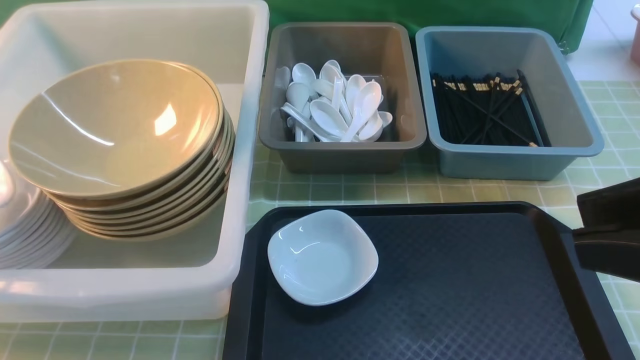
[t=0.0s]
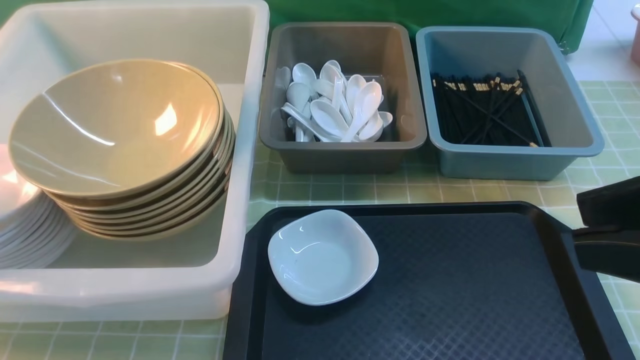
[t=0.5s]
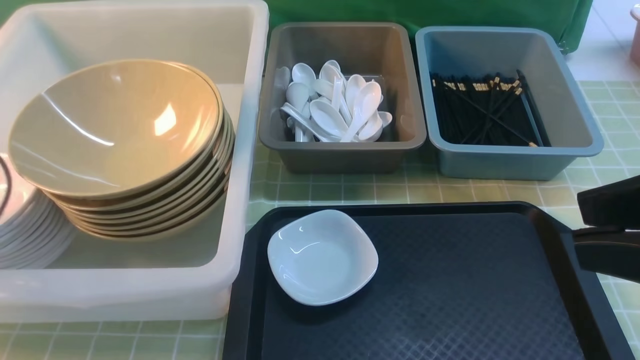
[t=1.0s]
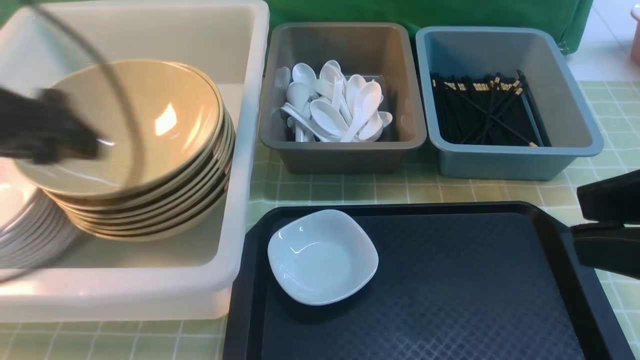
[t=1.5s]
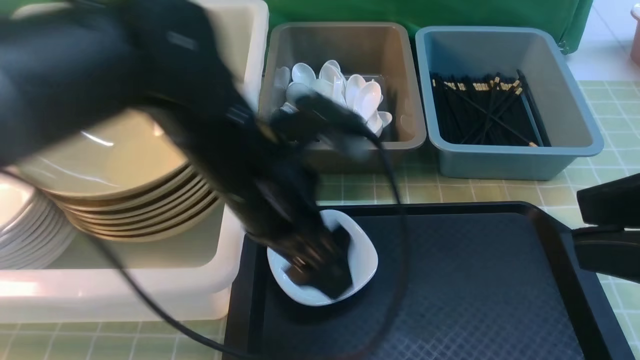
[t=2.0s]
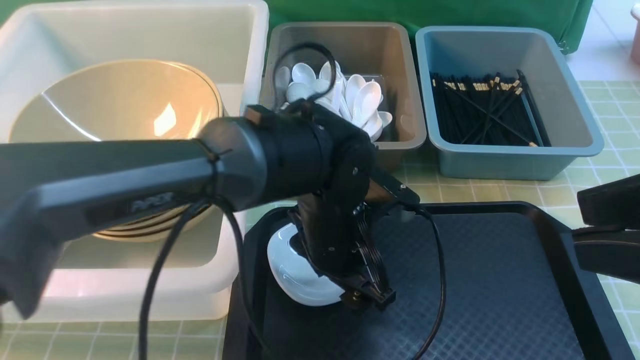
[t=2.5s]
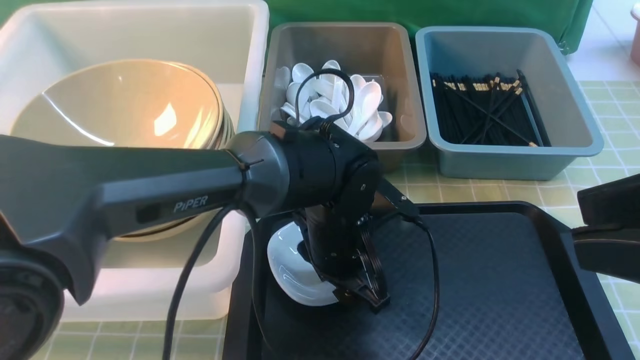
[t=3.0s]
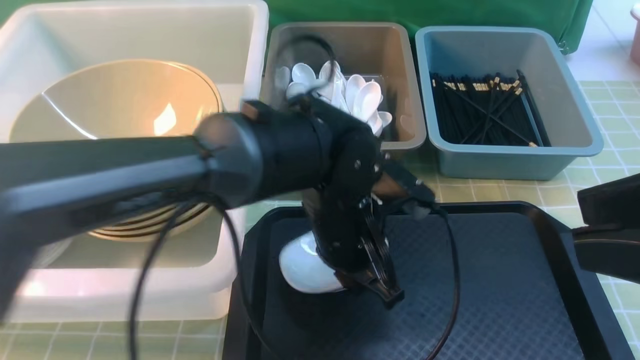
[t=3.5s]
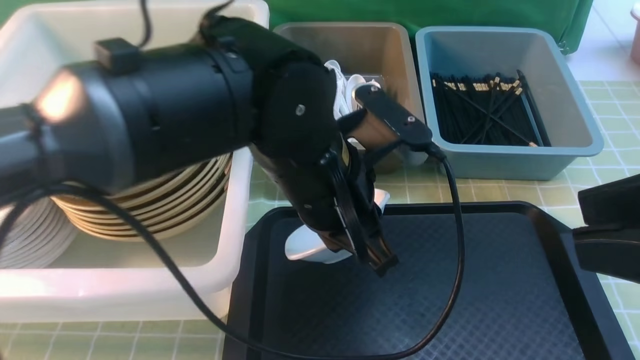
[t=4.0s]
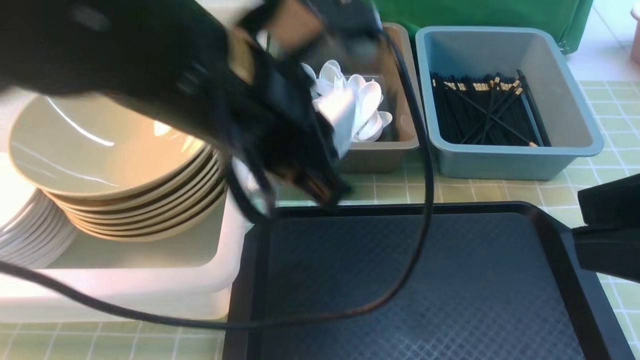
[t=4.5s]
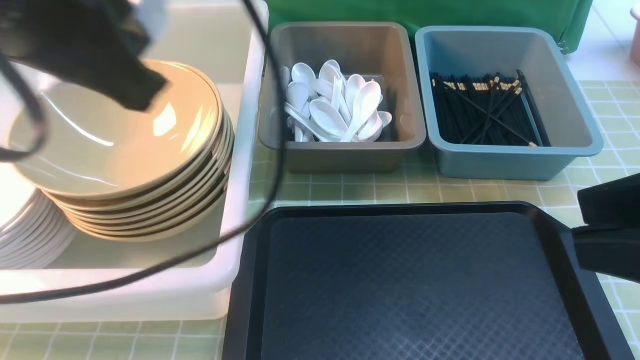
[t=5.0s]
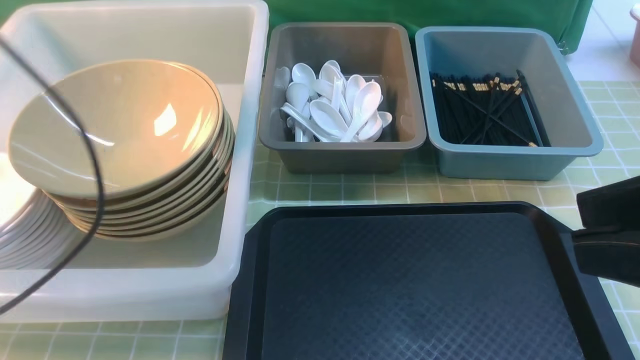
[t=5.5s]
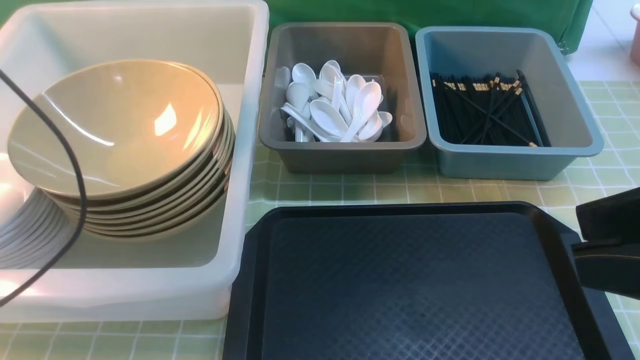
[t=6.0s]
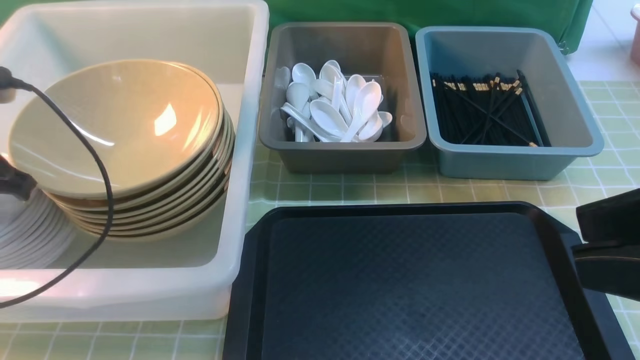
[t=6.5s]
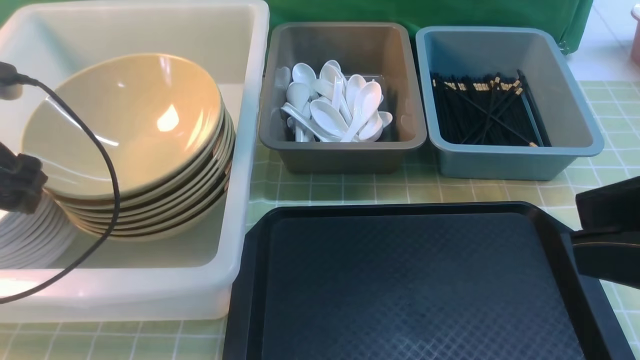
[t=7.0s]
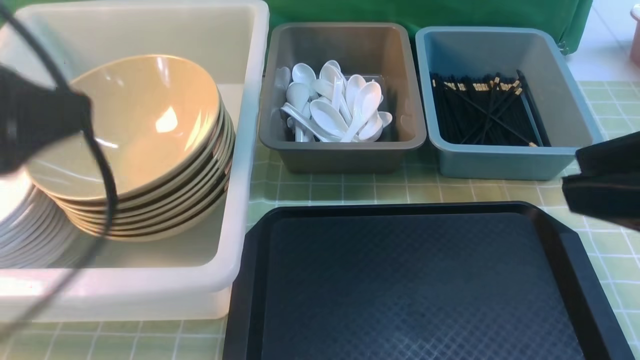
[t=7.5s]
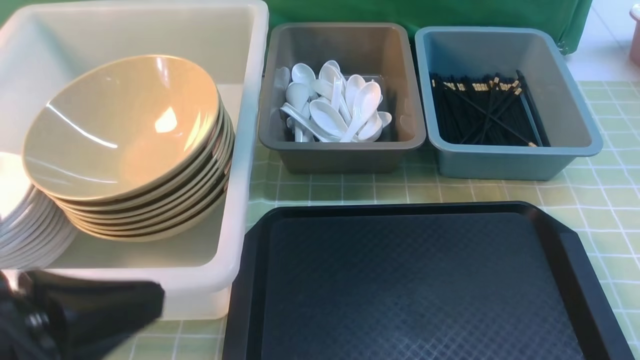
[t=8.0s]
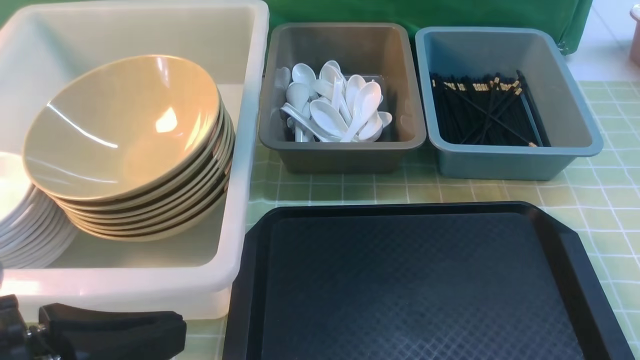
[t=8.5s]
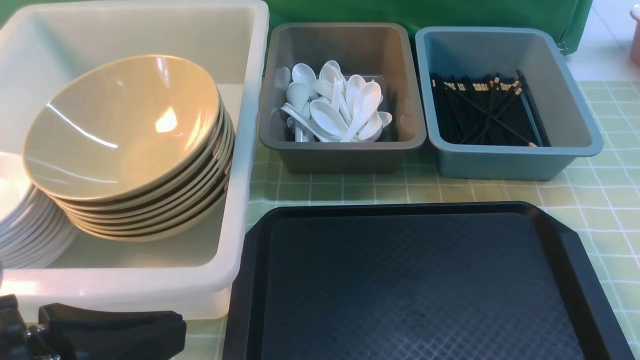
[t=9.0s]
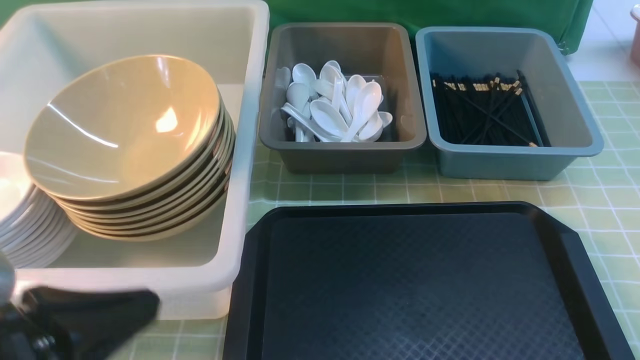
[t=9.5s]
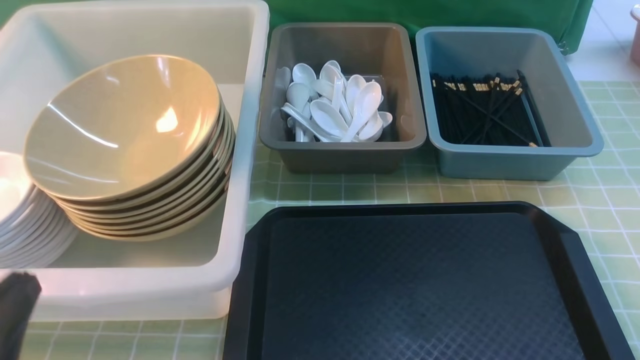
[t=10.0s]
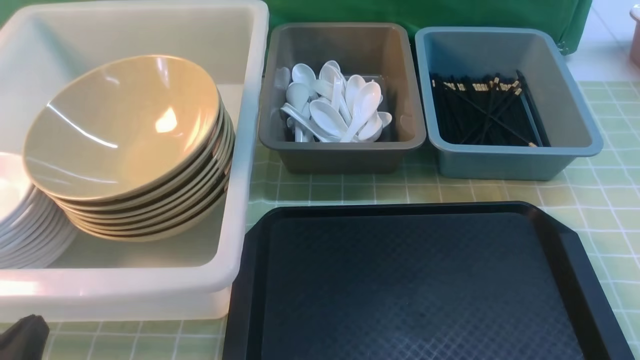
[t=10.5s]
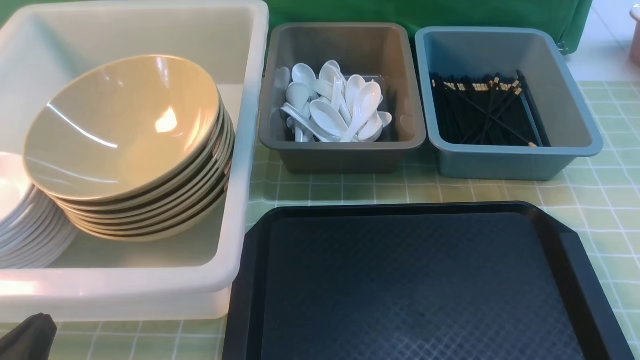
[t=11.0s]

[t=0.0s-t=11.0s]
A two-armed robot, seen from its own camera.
Task of the whole recording: on green table put chopsticks spoon bowls plates into blue grey white boxes.
Step, t=1.5s to t=3.5s: use the left arm to grab the plate.
Step, t=4.0s to t=7.0s: use the left arm to put the plate into the large storage box on the left.
t=0.0s to t=2.0s: The left gripper shifts approximately 35 cm to the right, and opens.
t=2.0s to t=3.5s: The left gripper goes roughly 10 cm to the right and downward, and closes up.
t=3.5s to t=5.5s: The left gripper travels to the left and upward by approximately 35 cm.
t=5.5s to t=7.5s: The left gripper heads backward, covering about 5 cm, and opens up.
t=7.5s to t=9.0s: The right gripper moves downward, backward and to the right, approximately 20 cm. The left gripper heads downward and backward, covering roughly 10 cm, and closes its fingers.
t=9.0s to t=11.0s: The left gripper travels downward and to the left by about 15 cm.

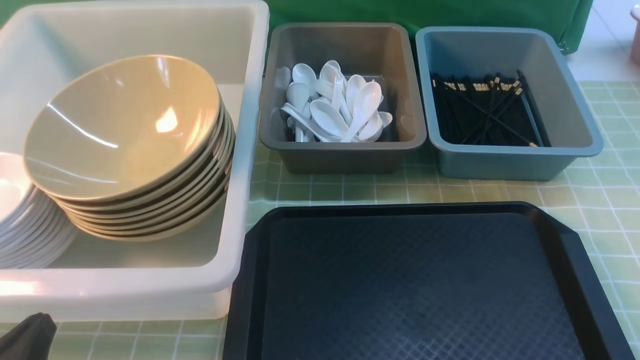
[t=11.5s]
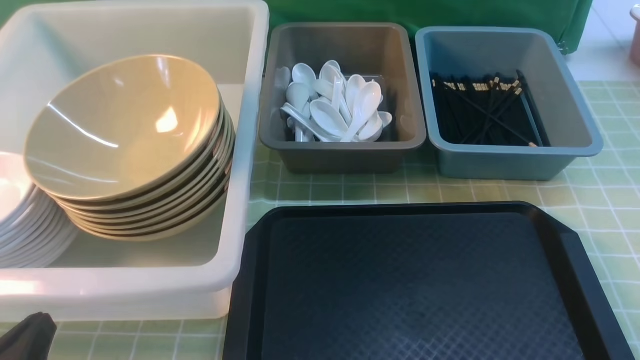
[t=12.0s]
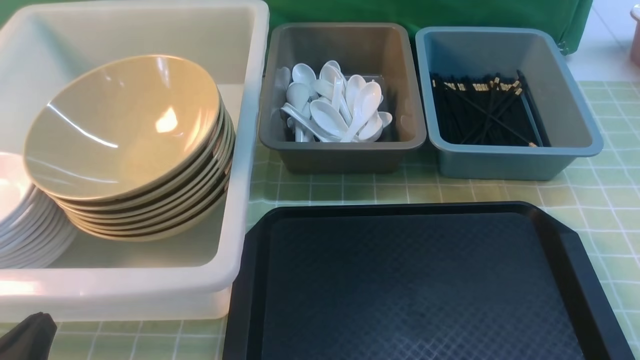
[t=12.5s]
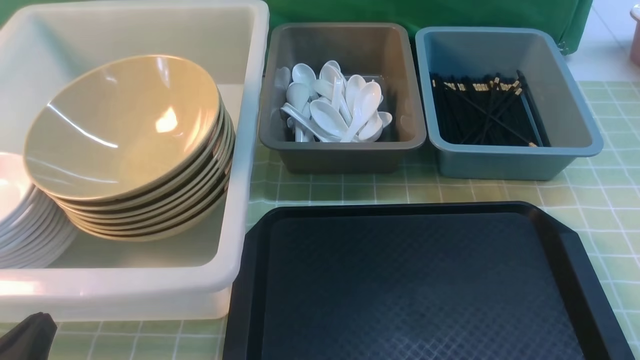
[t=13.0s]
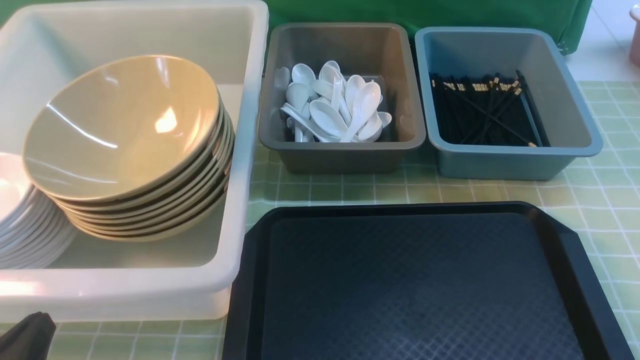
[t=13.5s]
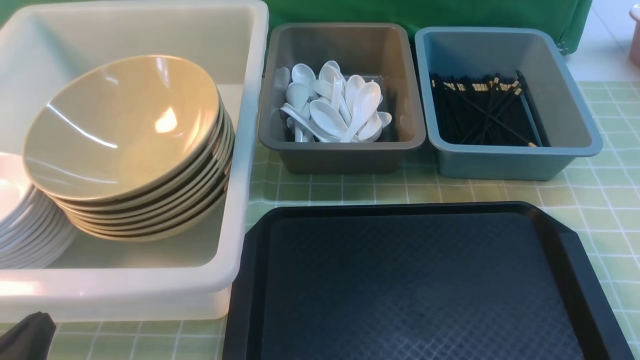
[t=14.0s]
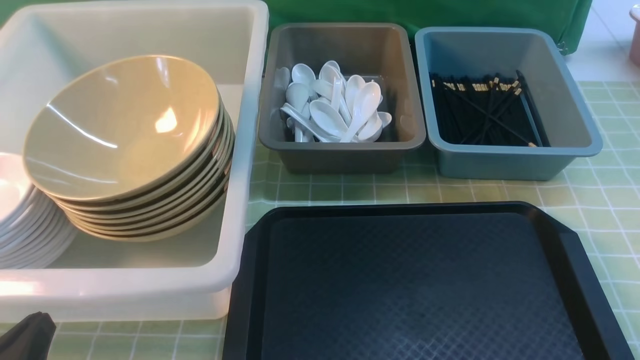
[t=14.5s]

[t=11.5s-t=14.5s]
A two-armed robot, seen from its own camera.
Task of the whole recording: on green table put chopsticks spoon bowls plates into blue grey white boxes.
t=13.0s to t=14.5s: Neither gripper changes place.
